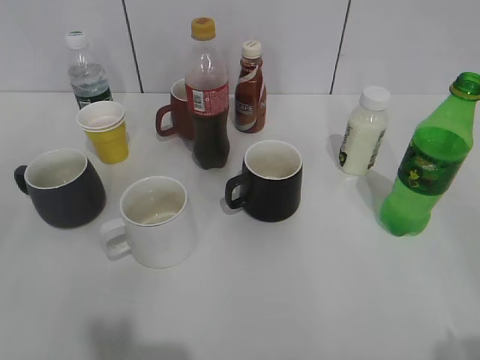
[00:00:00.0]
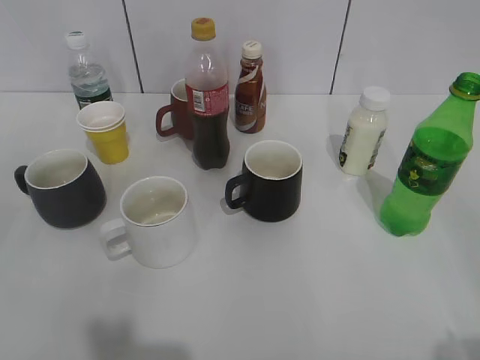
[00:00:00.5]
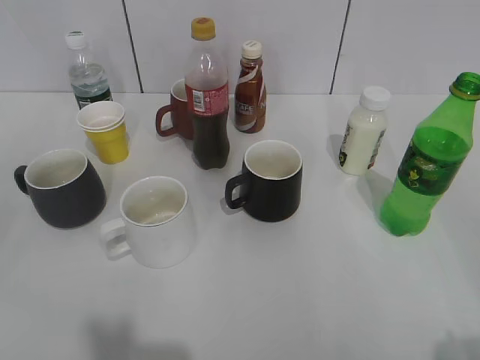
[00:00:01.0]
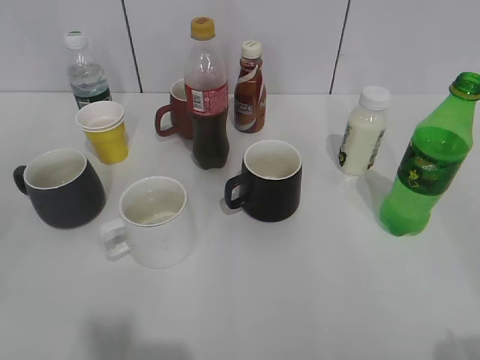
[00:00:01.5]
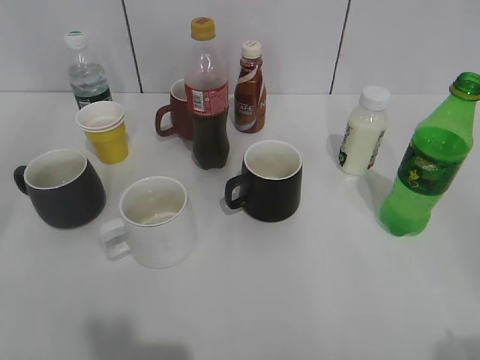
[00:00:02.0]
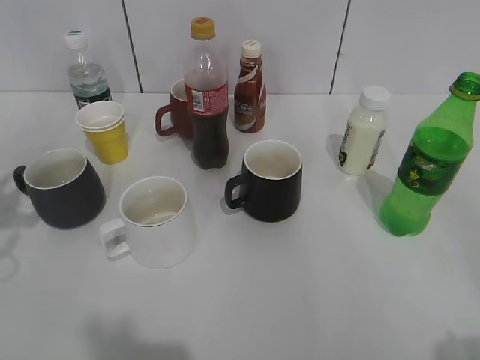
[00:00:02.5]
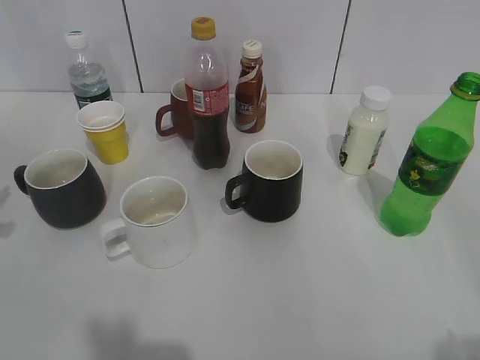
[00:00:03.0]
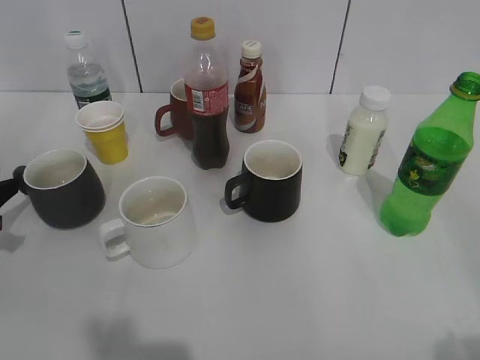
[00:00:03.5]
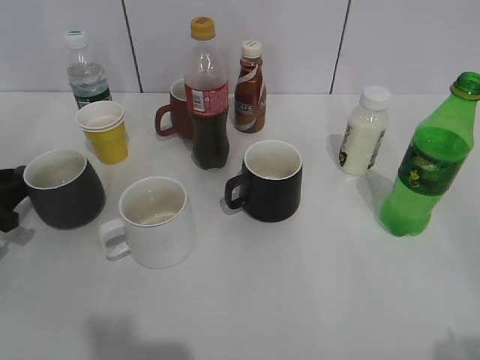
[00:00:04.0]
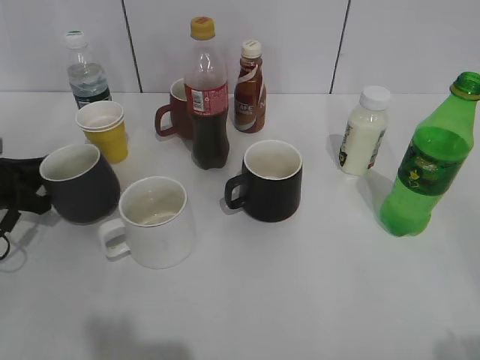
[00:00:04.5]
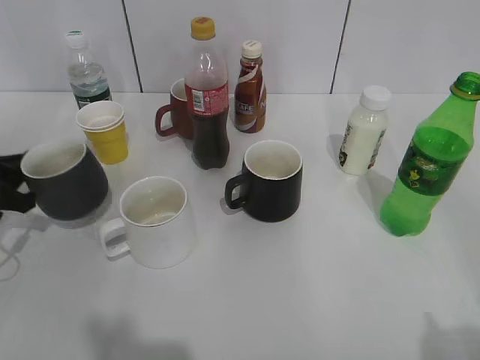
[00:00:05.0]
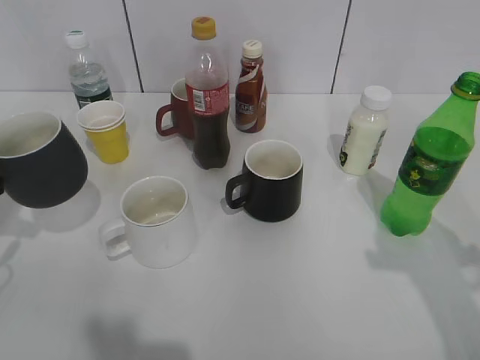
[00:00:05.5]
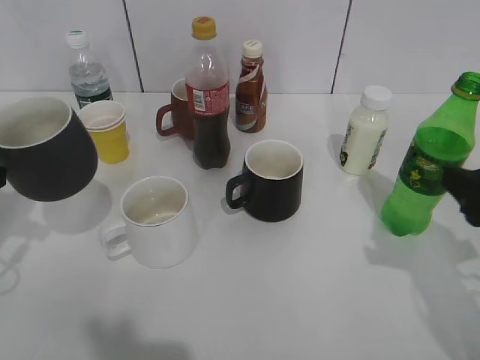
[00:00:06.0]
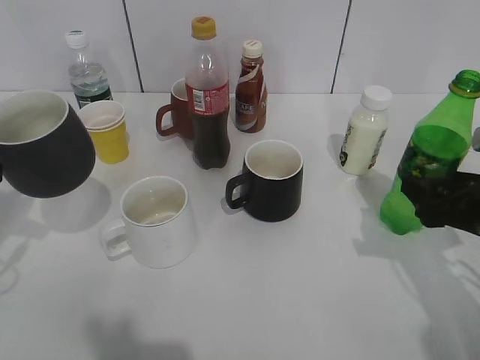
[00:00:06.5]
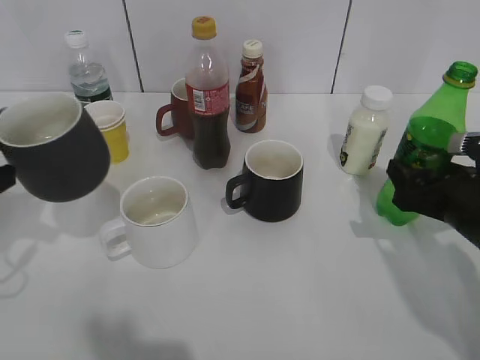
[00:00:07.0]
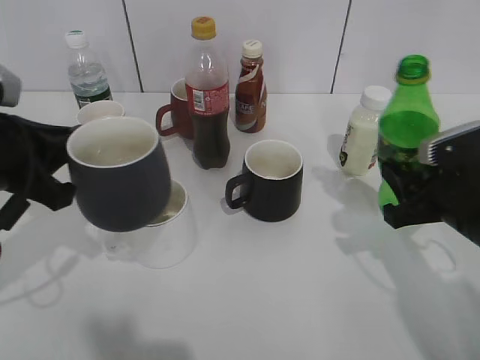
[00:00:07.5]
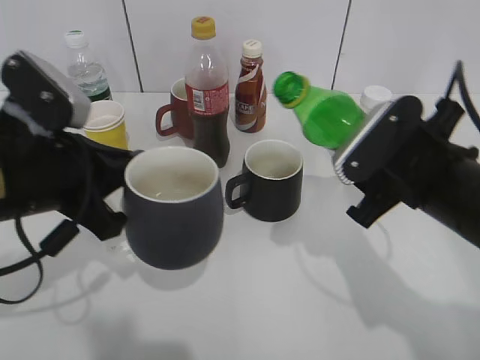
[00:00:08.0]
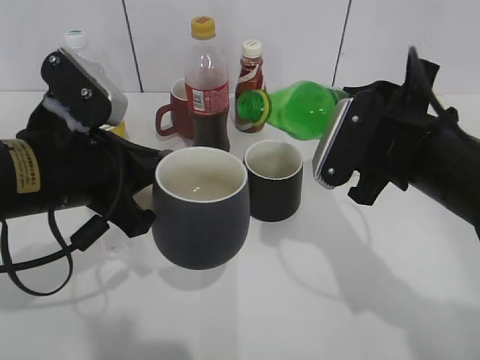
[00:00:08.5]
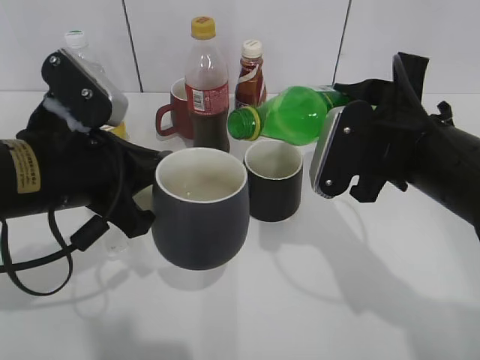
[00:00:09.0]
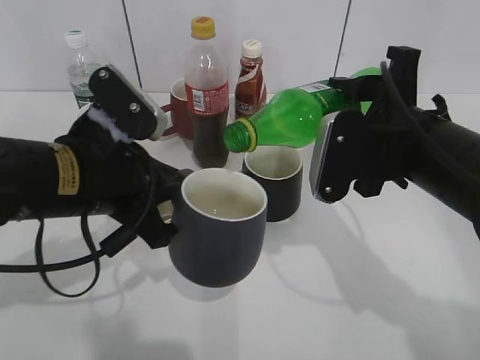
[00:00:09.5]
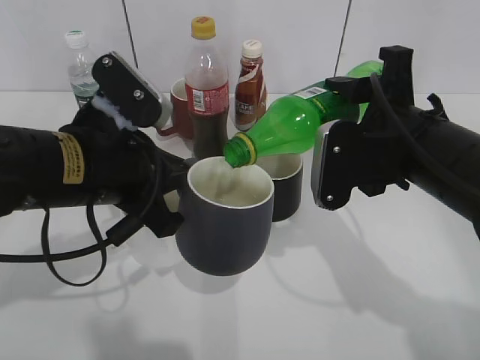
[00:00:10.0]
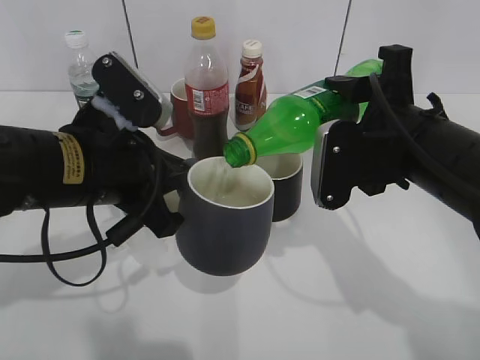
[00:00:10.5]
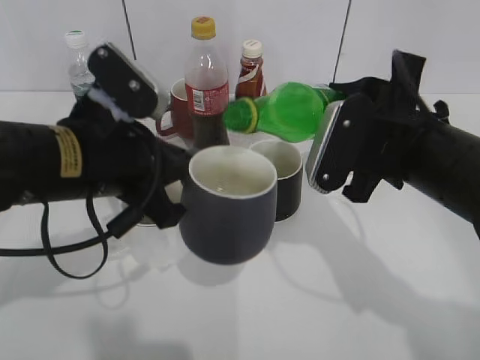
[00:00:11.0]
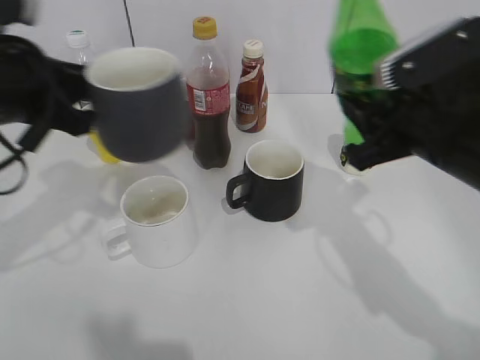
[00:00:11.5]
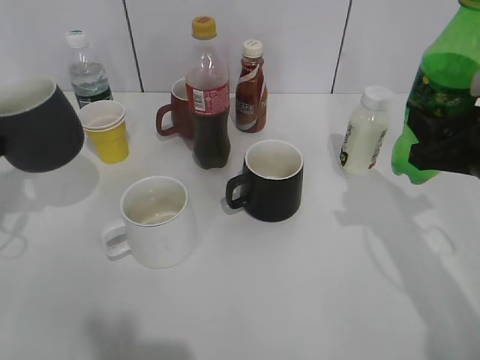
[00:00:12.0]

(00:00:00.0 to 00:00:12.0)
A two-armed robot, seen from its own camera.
Step, 00:00:03.5 - 00:00:04.5: Grasp the grey cup with left gripper.
Step, 00:00:05.0 - 00:00:05.5: Lift the grey cup with left gripper.
Step, 00:00:06.0 - 00:00:07.0: Grasp the bottle with sprite with right gripper.
Step, 00:00:07.5 - 00:00:11.0: Pour the sprite from bottle to cup with right gripper.
00:00:02.0 - 00:00:04.0: The left gripper shifts roughly 30 cm downward and forward.
00:00:04.0 - 00:00:06.0: The left gripper heads upward, to the right and backward, covering roughly 15 cm, and closes up; the right gripper shifts roughly 20 cm forward and downward.
00:00:06.0 - 00:00:08.0: The right gripper is displaced to the left by approximately 10 cm, and closes, while the left gripper goes roughly 10 cm to the right.
00:00:08.0 - 00:00:10.0: The left gripper moves some 5 cm.
00:00:10.0 - 00:00:12.0: The right gripper goes about 10 cm to the right. The left gripper shifts about 20 cm to the left.

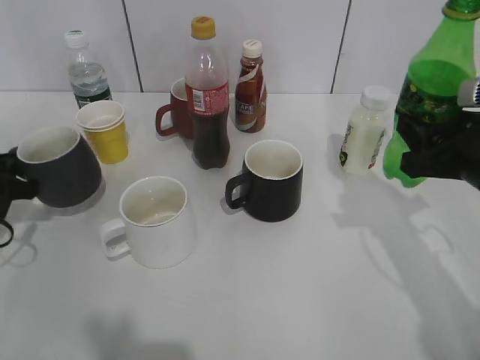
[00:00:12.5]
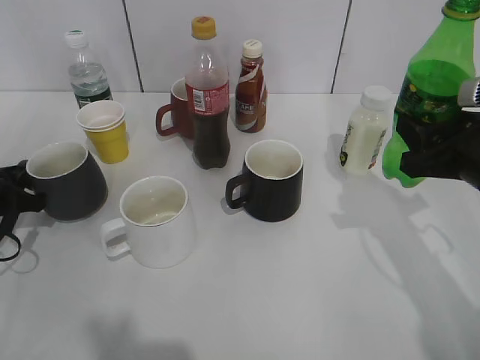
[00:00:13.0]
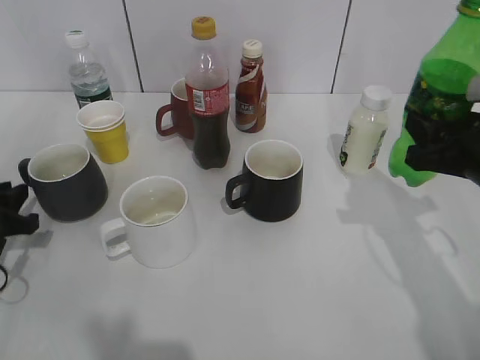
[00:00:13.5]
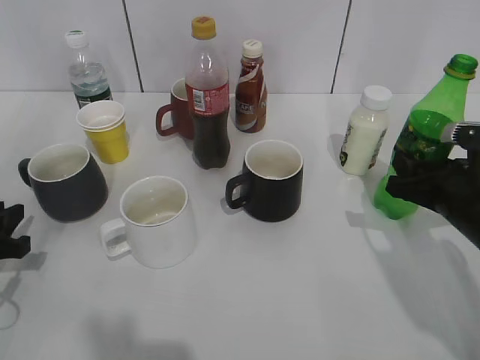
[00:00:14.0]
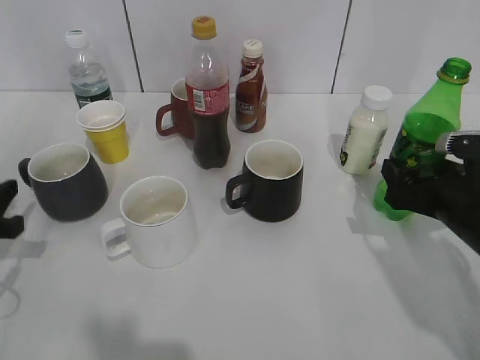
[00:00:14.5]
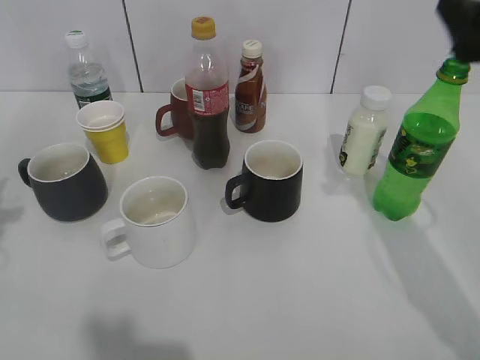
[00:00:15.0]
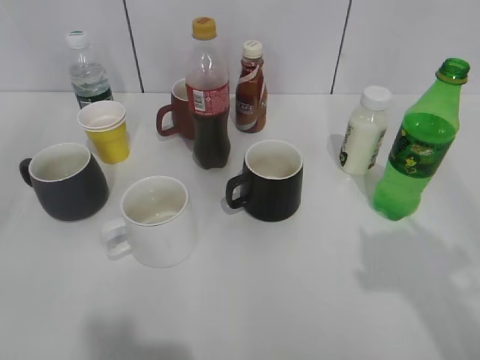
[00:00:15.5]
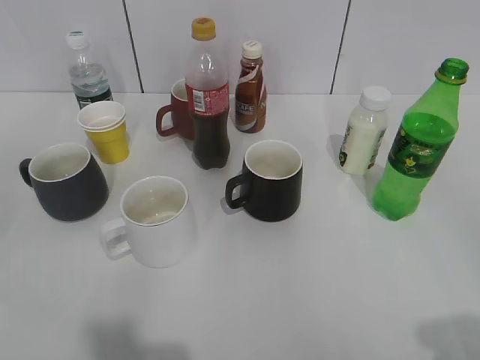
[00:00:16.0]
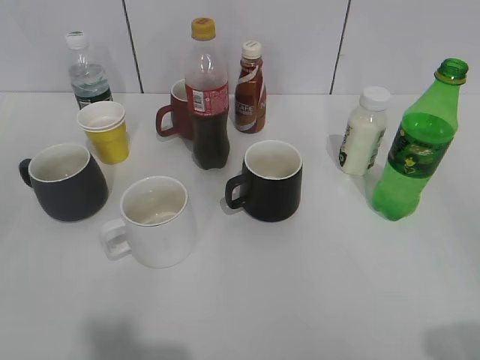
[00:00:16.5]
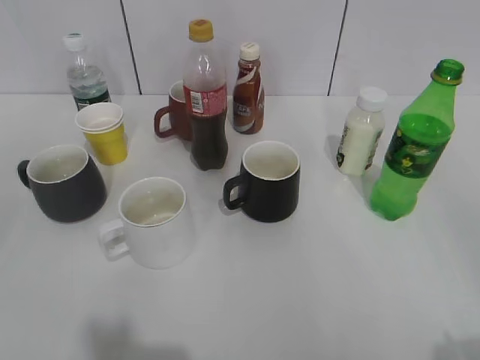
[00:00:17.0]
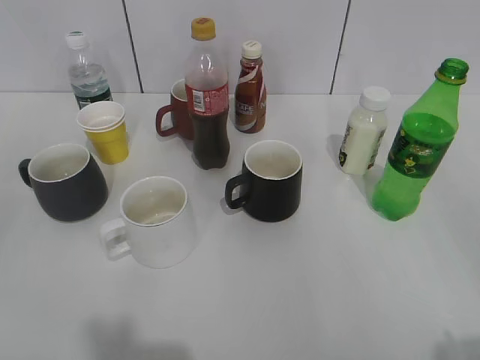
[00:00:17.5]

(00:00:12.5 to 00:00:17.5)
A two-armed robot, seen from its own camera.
Step, 00:00:14.0 - 00:00:14.5: Place the sprite bottle on the table with right gripper.
00:00:12.5 - 00:00:15.0: The right gripper goes roughly 10 cm upward, and opens up. The left gripper is displaced upward and backward by about 15 cm, and opens.
00:00:15.0 - 00:00:17.5: The right gripper heads backward, covering approximately 25 cm, and closes up.
